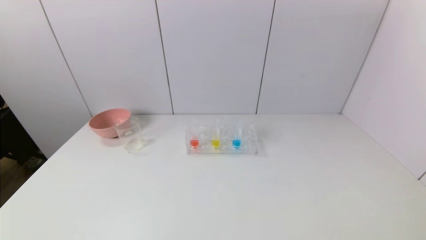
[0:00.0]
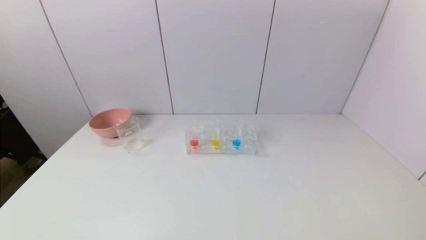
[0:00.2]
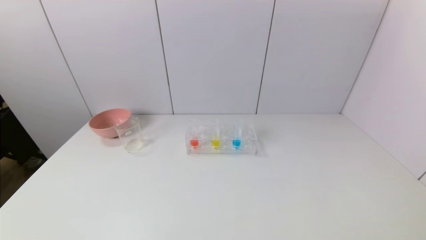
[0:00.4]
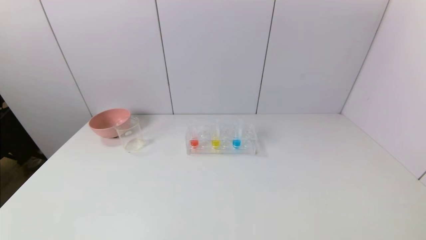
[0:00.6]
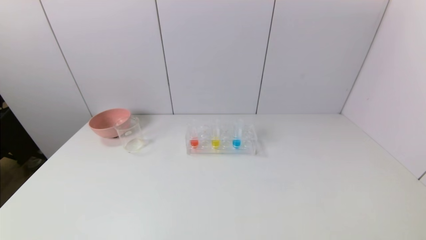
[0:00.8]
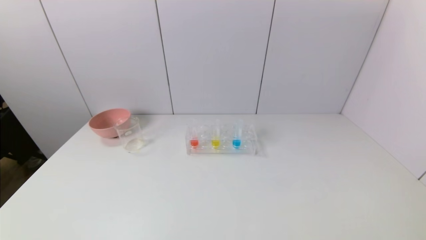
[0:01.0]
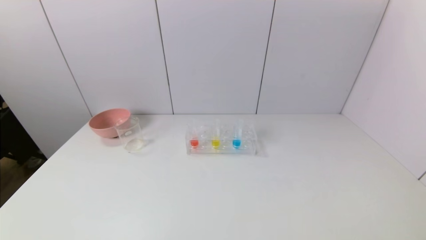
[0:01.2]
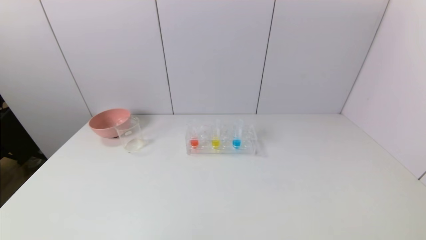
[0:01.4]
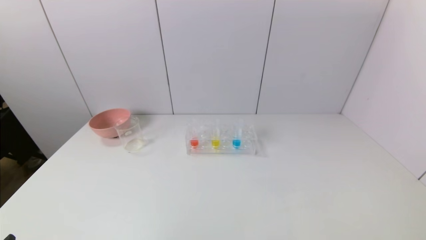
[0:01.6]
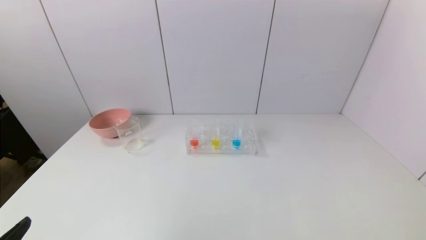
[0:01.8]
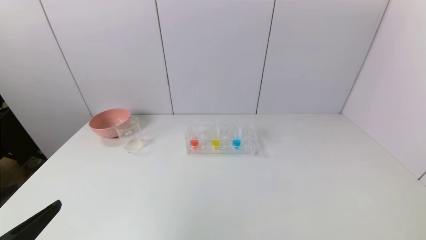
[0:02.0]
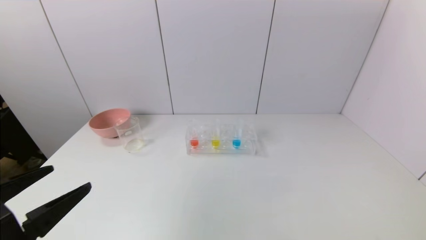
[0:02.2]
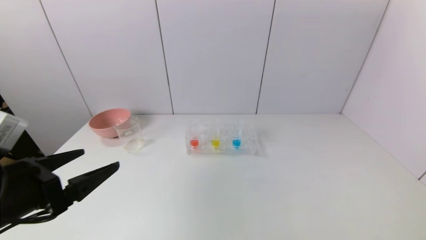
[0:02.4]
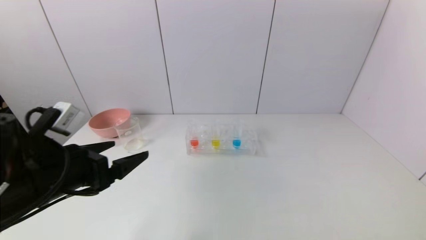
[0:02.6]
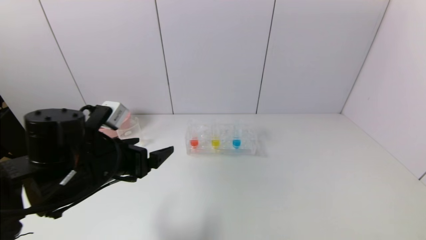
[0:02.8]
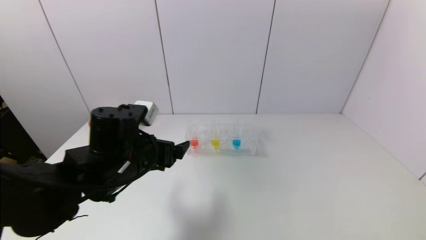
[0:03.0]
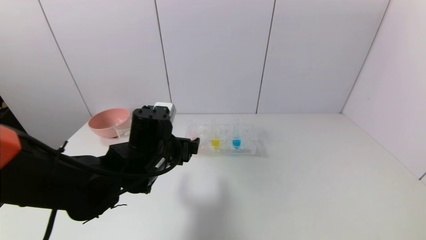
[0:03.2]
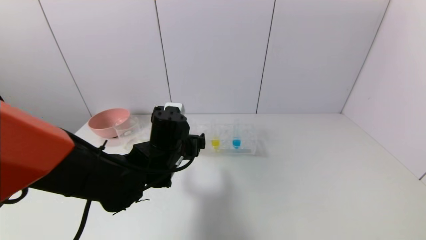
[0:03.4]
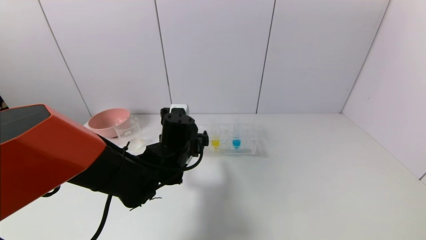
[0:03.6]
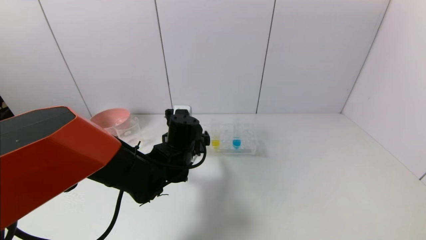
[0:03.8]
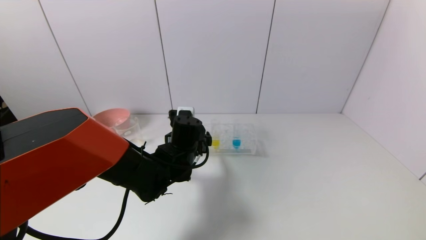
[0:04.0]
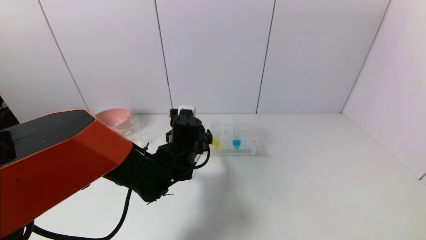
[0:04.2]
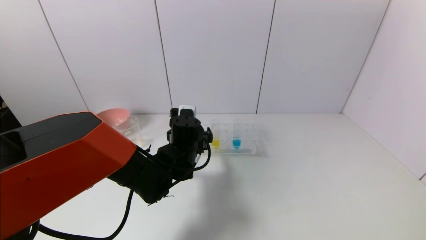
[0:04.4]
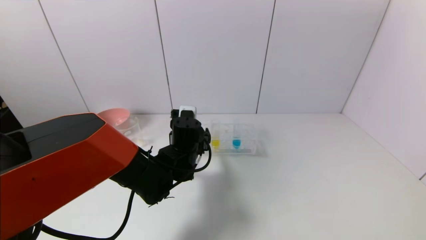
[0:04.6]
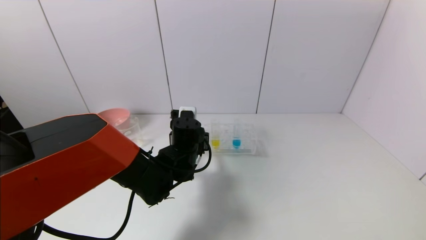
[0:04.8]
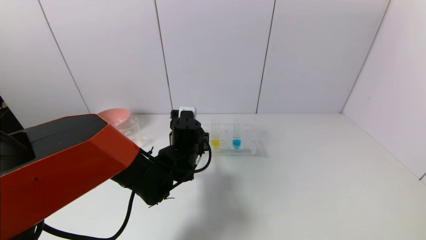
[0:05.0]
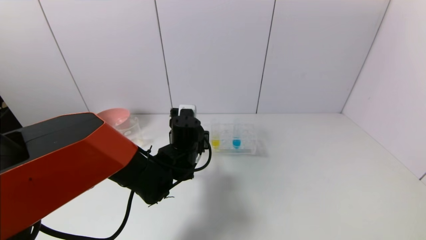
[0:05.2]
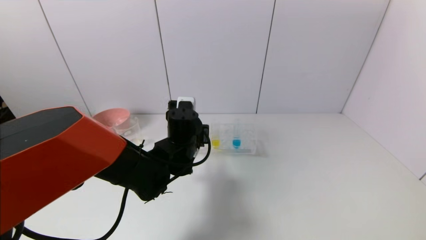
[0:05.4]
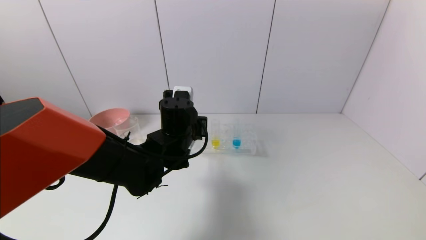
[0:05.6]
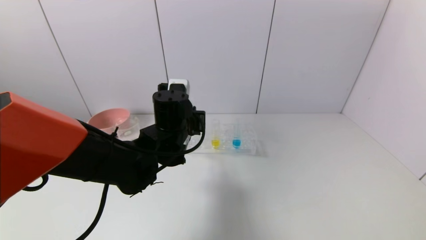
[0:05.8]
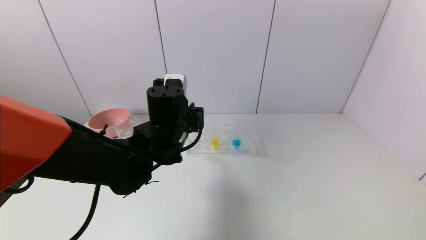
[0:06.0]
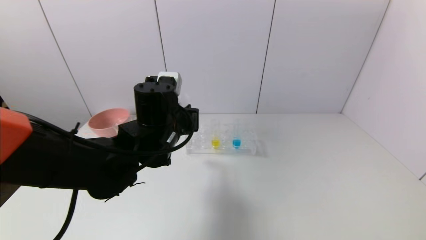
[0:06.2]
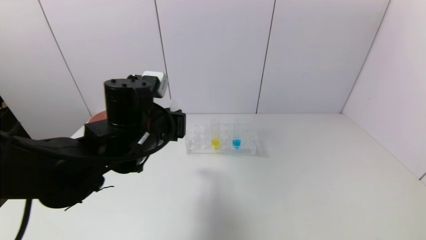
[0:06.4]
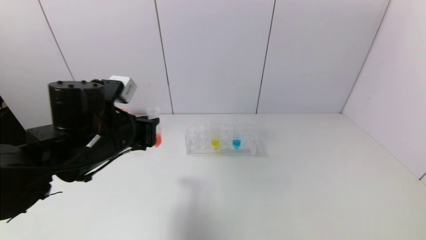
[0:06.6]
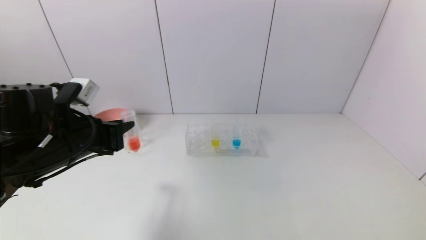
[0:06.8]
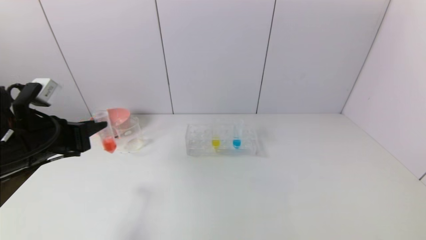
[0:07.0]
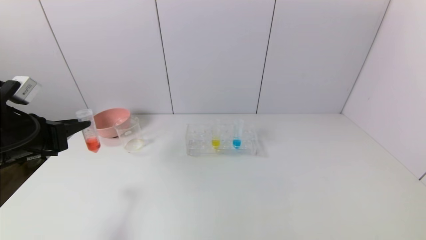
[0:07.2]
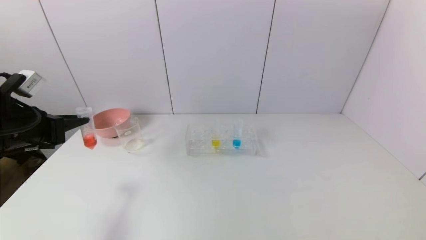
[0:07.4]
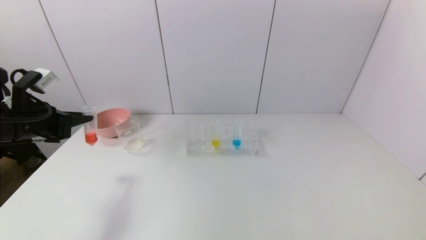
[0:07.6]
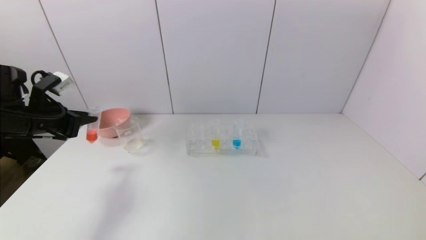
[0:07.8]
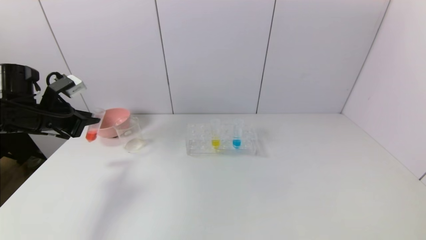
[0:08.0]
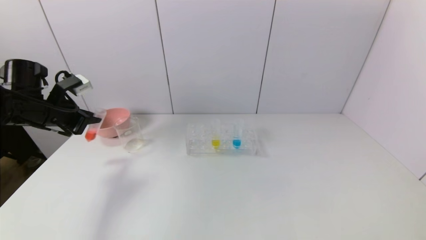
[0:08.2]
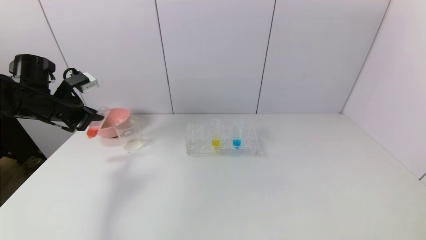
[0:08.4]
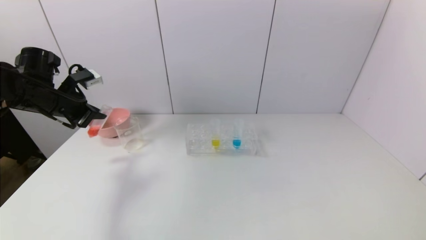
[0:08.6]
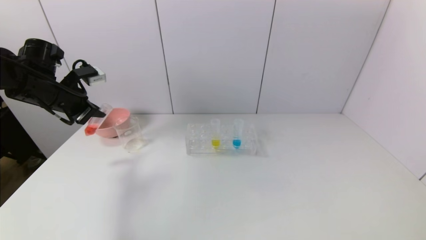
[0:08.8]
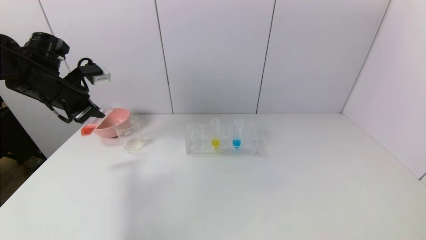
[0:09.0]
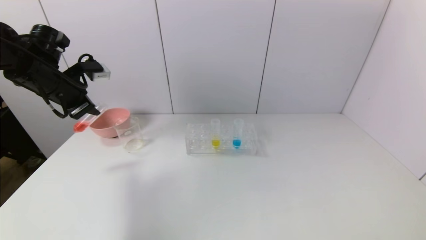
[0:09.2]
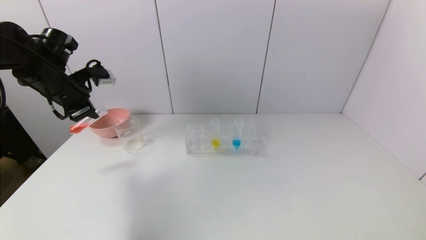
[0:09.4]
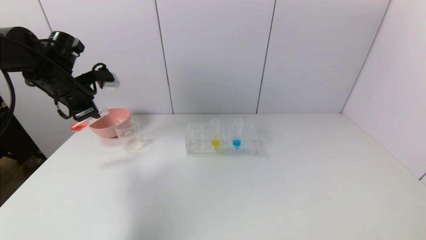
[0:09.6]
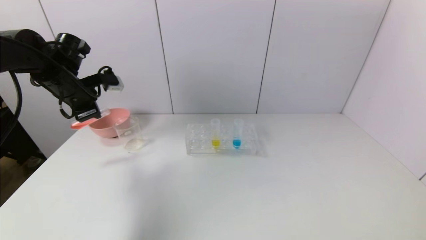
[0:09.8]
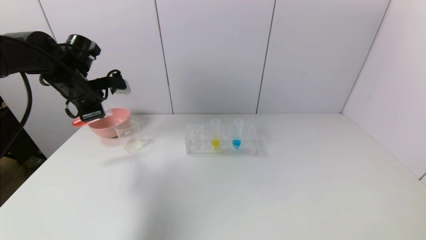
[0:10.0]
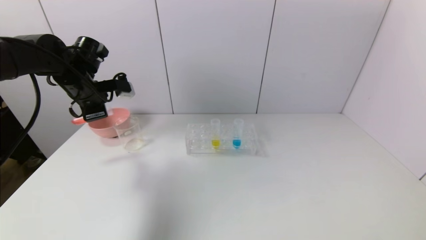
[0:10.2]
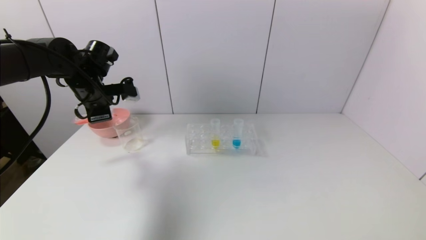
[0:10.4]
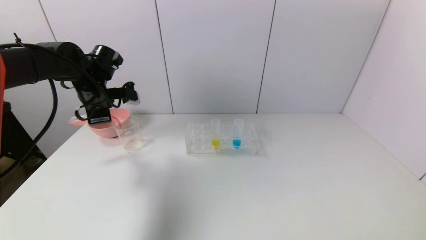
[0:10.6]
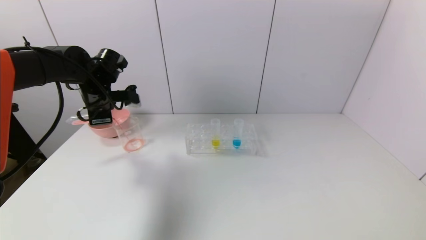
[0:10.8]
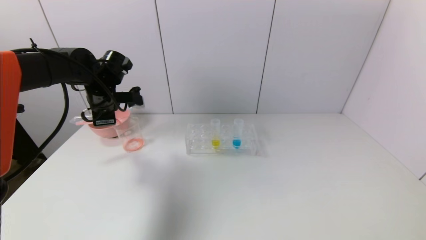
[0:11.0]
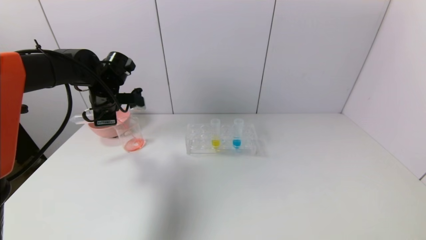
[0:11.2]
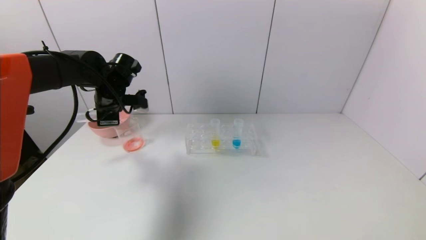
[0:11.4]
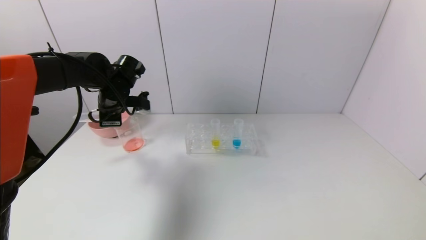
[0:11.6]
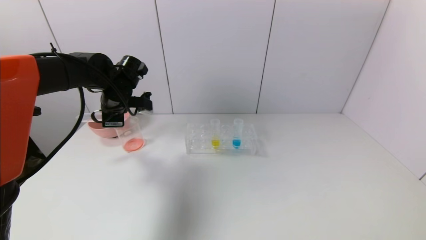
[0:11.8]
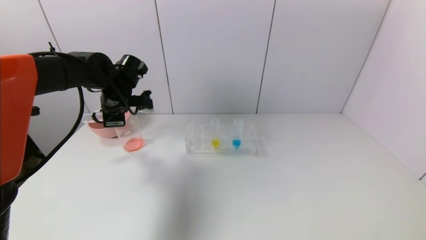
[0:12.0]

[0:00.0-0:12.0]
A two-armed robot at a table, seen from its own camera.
Task of the whole recording: pick up the test tube with yellow pigment and the test tube with red pigment by grippers and pour them into the beaker.
Step, 0:00.0 to 0:05.0: Grasp the red reagent with the left gripper.
Step, 0:05.2 to 0:11.8: Pour the red reagent into the graduated cylinder with the left gripper.
0:01.6 to 0:03.0: The left gripper heads forward and to the right, covering some 30 cm.
0:03.0 to 0:04.4: The left gripper heads forward, to the right and downward, covering about 15 cm.
0:04.4 to 0:06.0: The left gripper heads upward, covering roughly 10 cm, and closes its fingers.
0:06.0 to 0:07.6: The left gripper goes some 30 cm to the left.
0:07.6 to 0:09.0: The left gripper shifts about 10 cm forward.
0:09.0 to 0:10.4: The left gripper travels to the right by about 5 cm.
0:10.4 to 0:12.0: The left gripper shifts by roughly 5 cm.

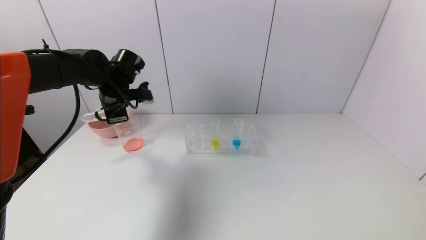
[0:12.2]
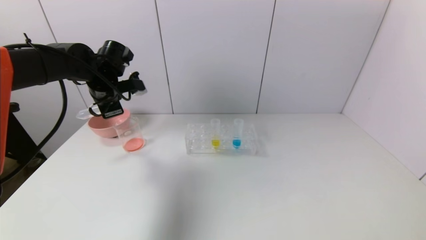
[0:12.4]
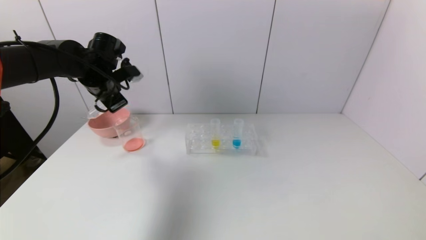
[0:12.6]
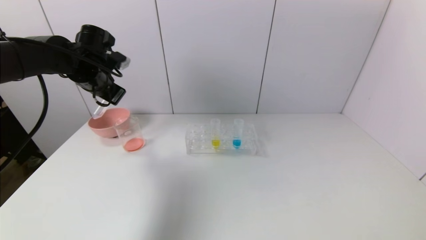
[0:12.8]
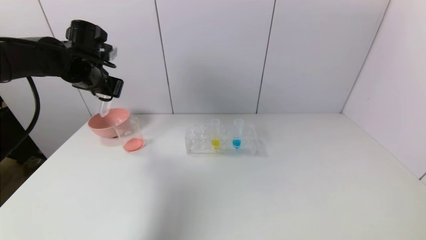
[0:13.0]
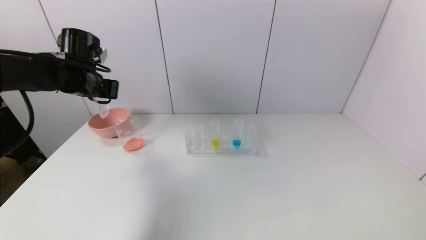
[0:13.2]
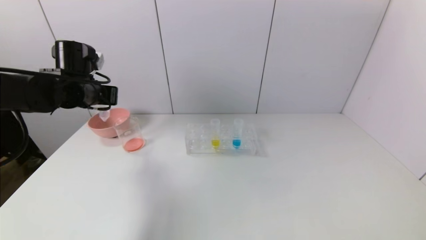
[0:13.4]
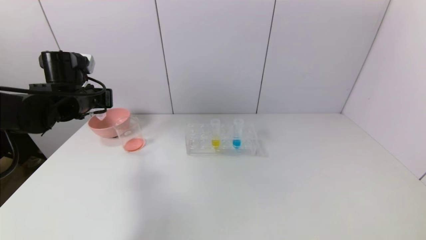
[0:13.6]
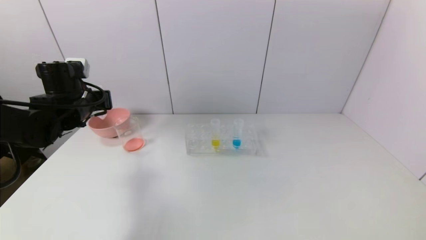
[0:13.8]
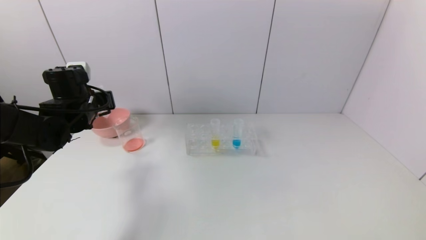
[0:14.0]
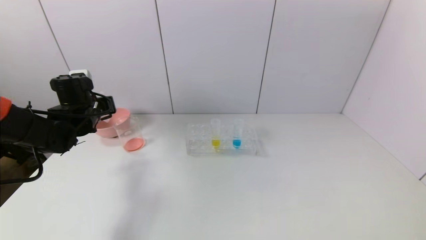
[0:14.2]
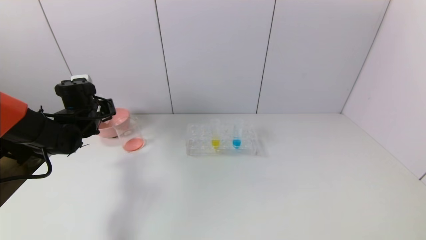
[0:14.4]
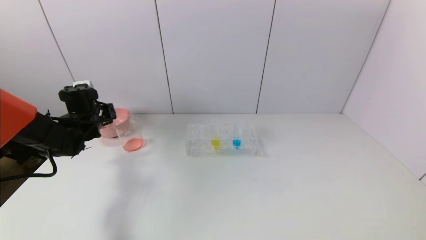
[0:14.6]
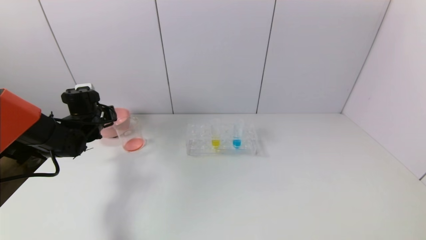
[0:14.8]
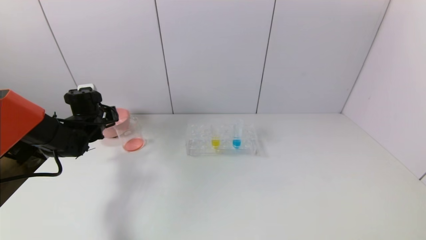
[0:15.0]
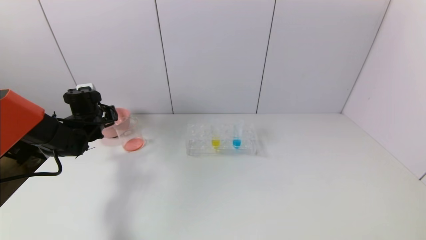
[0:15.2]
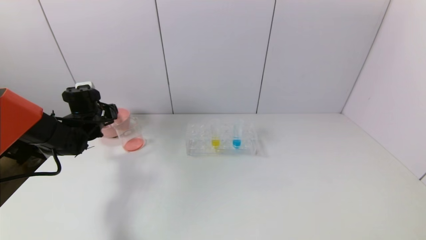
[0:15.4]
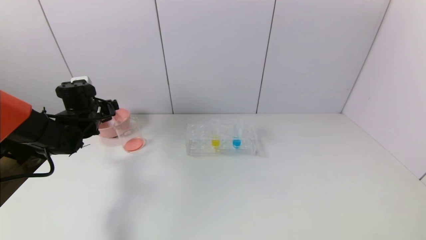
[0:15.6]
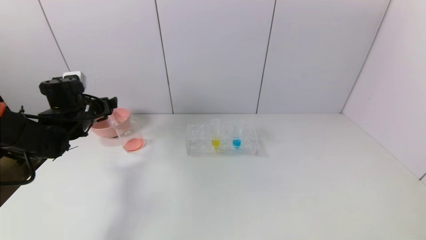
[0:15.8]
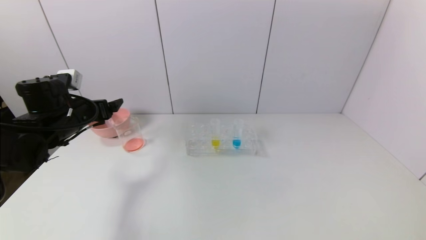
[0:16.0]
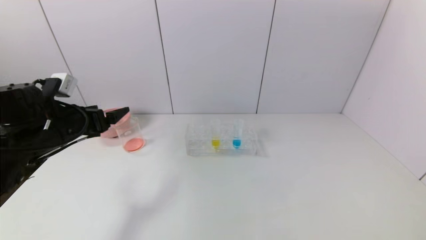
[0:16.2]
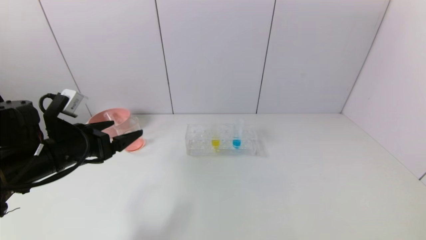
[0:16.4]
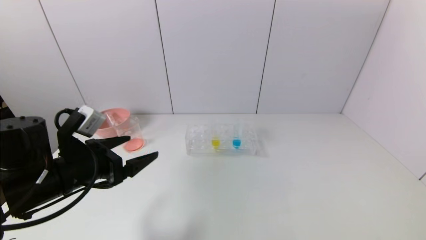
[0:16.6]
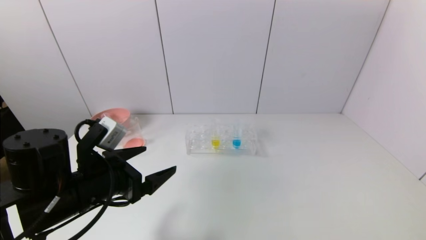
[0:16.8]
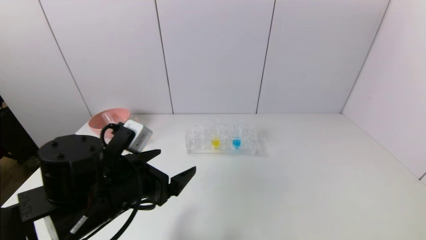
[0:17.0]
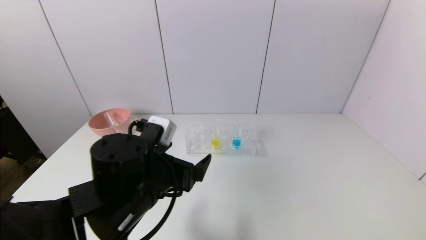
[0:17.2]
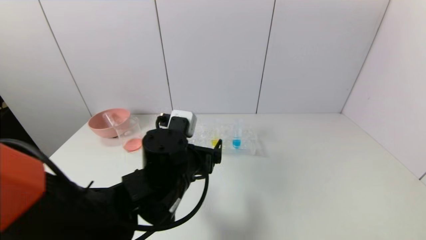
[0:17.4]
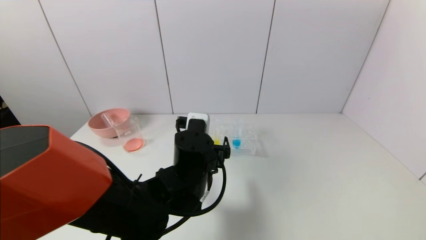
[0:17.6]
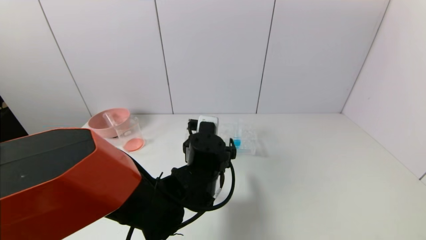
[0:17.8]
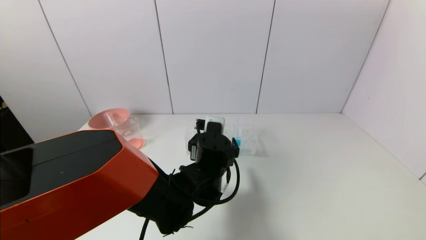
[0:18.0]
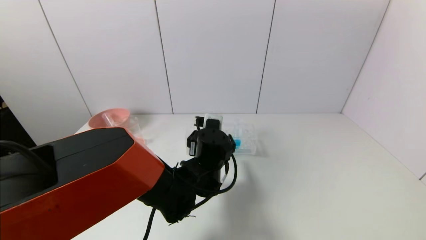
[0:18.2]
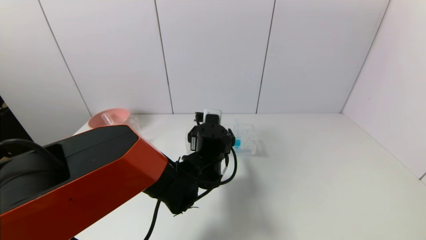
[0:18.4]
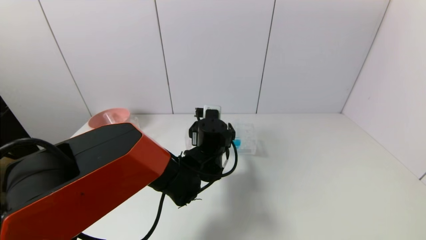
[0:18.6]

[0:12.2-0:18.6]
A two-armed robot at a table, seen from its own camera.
Task of the whole recording: pick up the test tube with yellow pigment and the test tube with red pigment by grippers and pour them into the beaker.
Step, 0:12.2 to 0:15.4: Place the test tube into the pink bowl with the left gripper.
0:12.2 to 0:13.8: The left gripper heads to the left, covering roughly 5 cm.
0:13.8 to 0:15.4: The left gripper shifts about 10 cm downward and forward, and opens.
0:15.4 to 0:17.0: The left gripper shifts about 30 cm backward and to the right.
0:17.0 to 0:18.6: The left gripper is displaced to the right and forward by about 20 cm.
